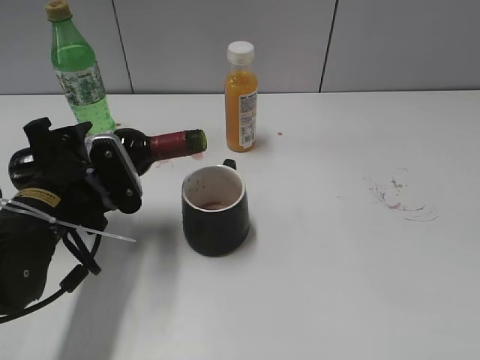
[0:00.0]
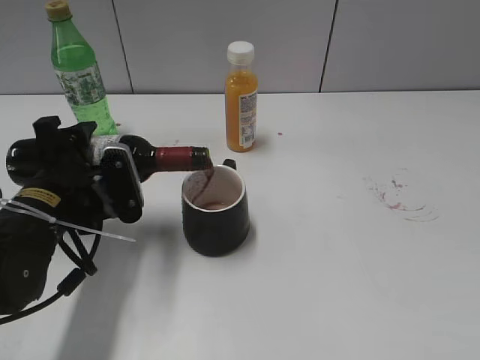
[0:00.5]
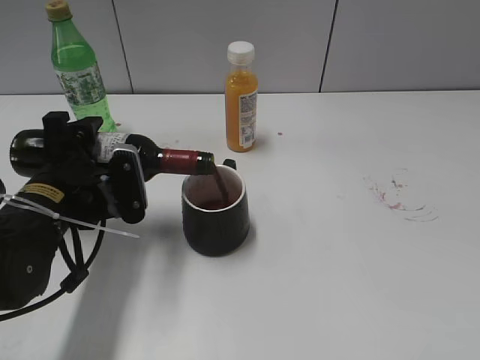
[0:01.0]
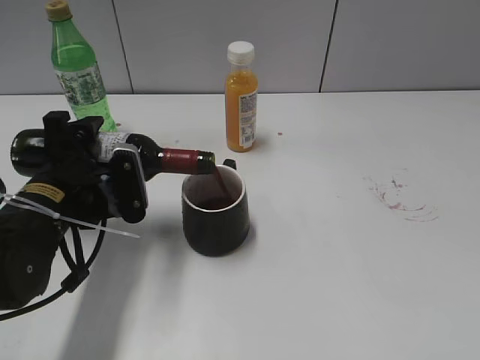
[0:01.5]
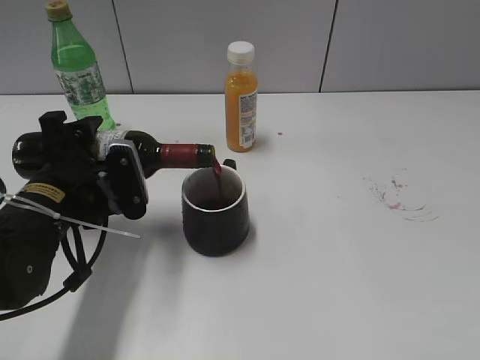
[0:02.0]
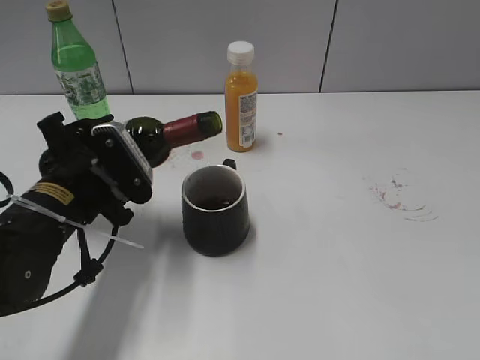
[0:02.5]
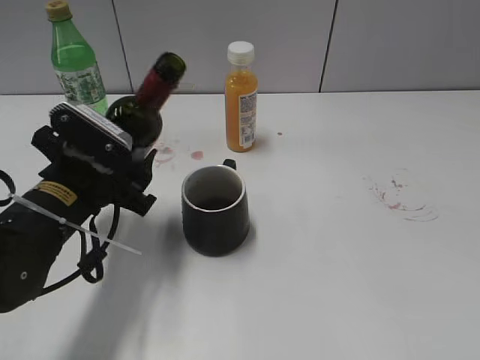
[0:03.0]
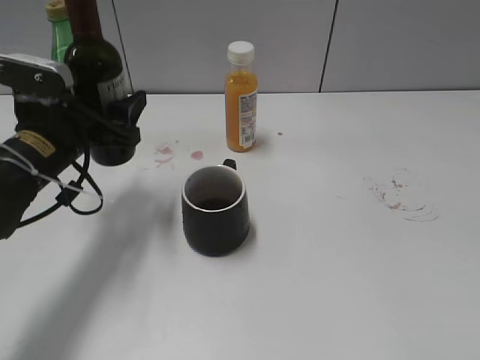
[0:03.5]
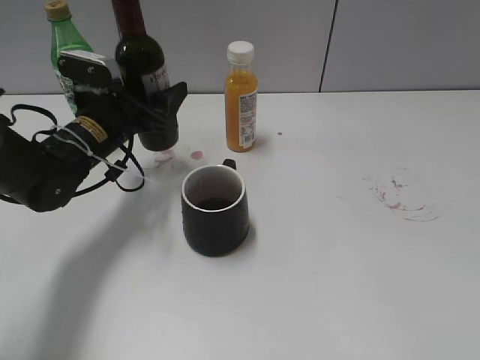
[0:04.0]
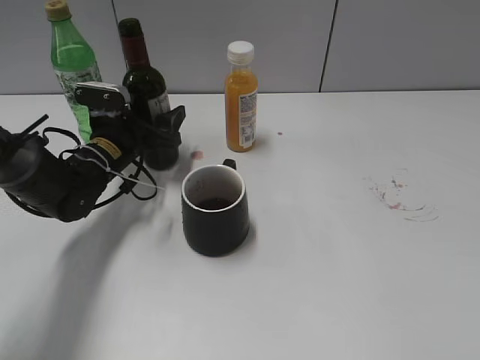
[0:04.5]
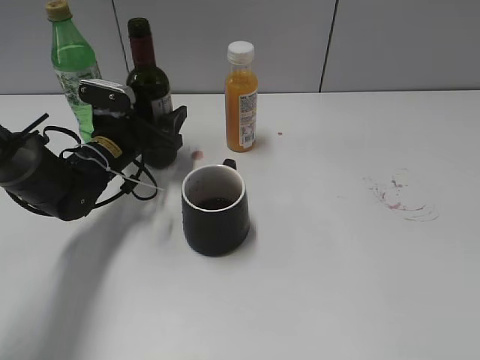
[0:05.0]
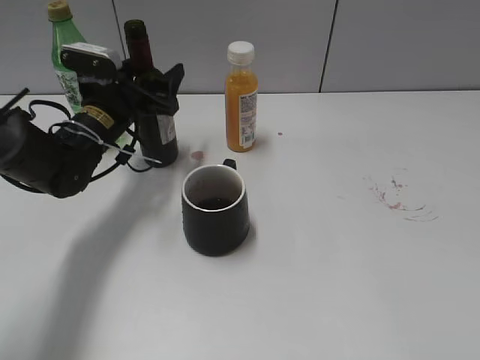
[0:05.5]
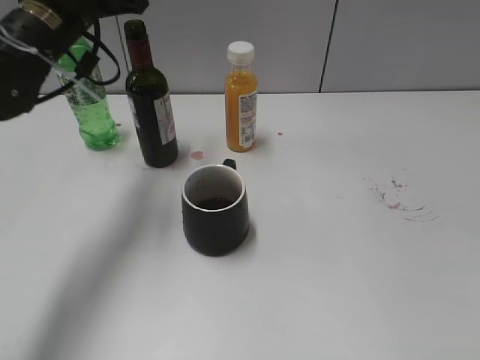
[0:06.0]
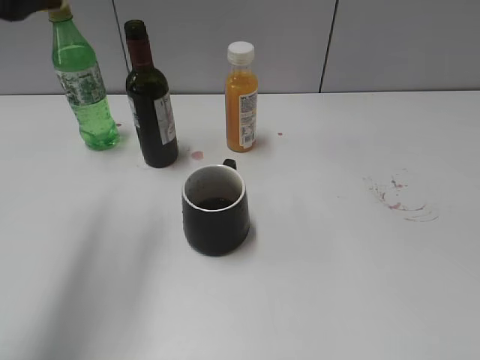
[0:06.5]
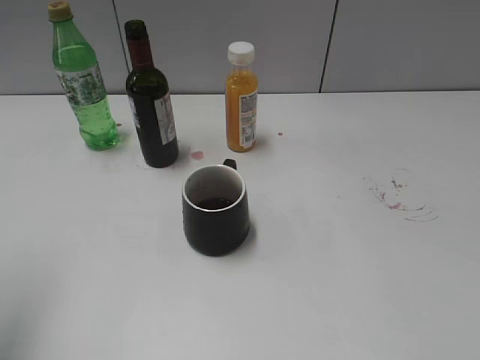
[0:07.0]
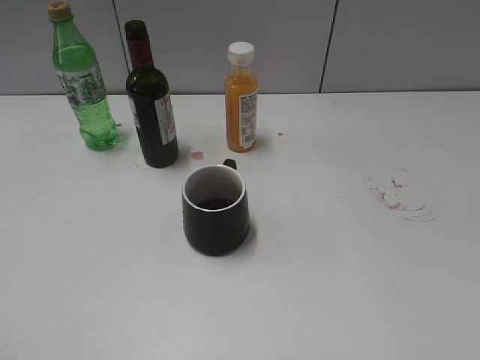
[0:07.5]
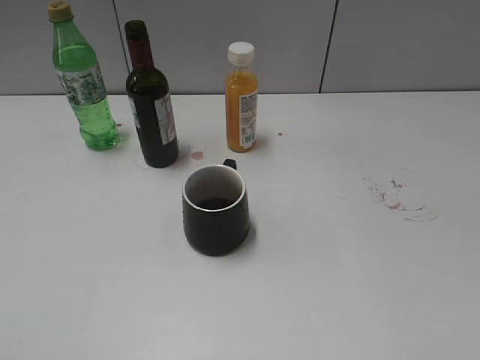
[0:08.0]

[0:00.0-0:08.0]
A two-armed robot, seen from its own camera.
Step, 0:00.0 to 0:02.0: Pour the red wine from bottle to cup with left gripper.
Step, 0:03.0 to 0:05.0: Place the red wine bottle on the table with left gripper.
0:00.0 to 0:02.0: There are only small adjustments of the grippers.
0:02.0 to 0:04.0: The left gripper heads forward, covering roughly 10 cm.
0:04.0 to 0:06.0: The left gripper goes roughly 15 cm upward, and opens up.
0:06.0 to 0:08.0: The left gripper goes roughly 35 cm backward.
